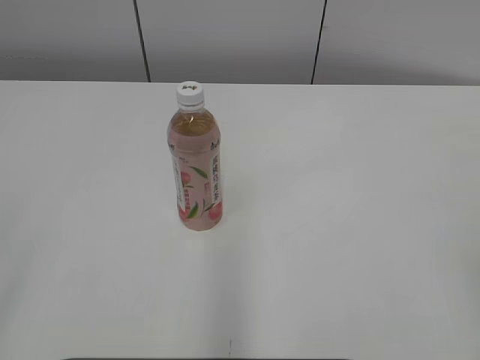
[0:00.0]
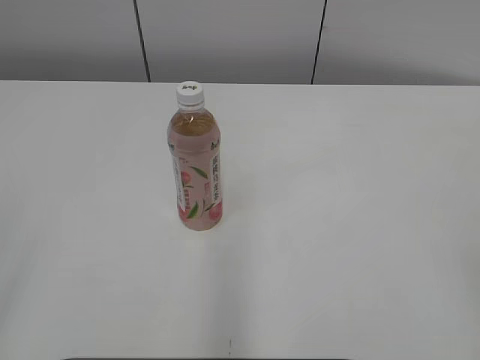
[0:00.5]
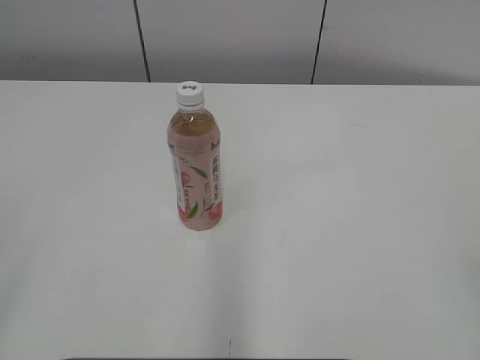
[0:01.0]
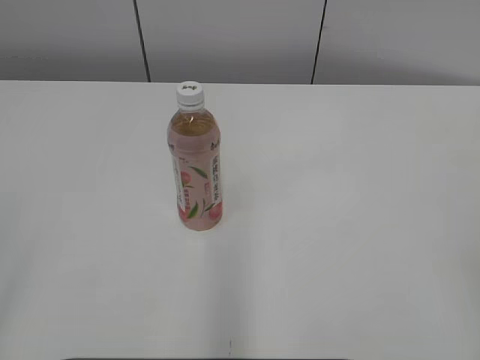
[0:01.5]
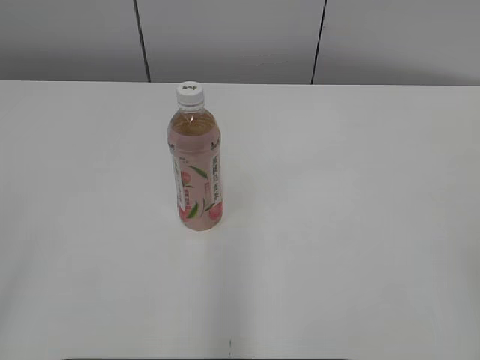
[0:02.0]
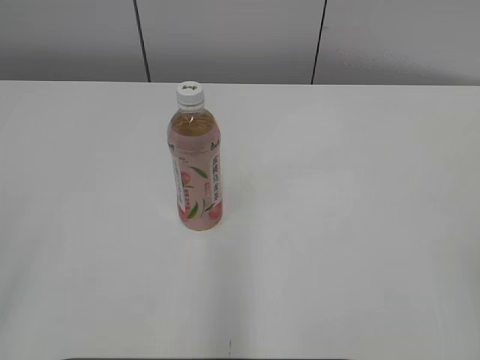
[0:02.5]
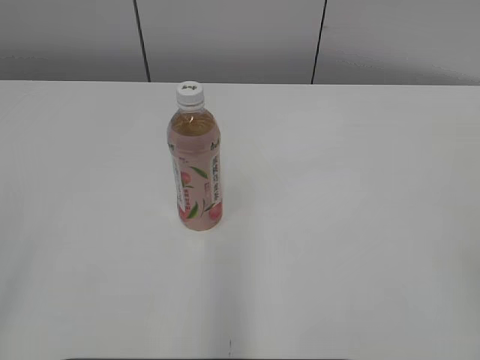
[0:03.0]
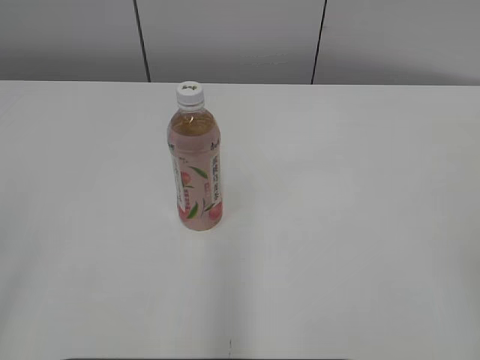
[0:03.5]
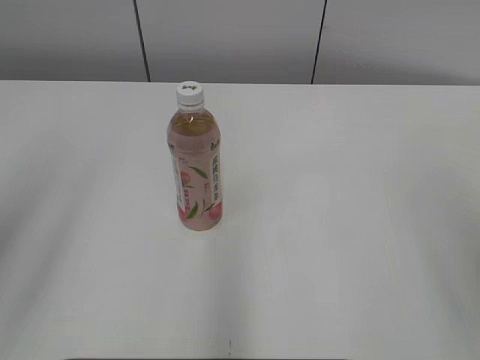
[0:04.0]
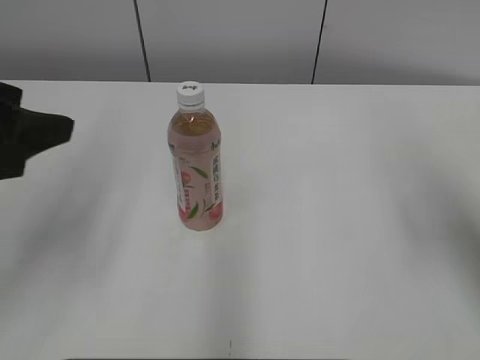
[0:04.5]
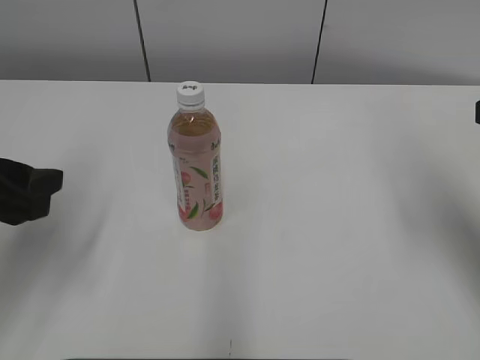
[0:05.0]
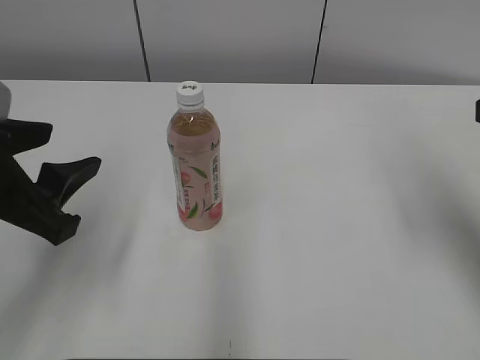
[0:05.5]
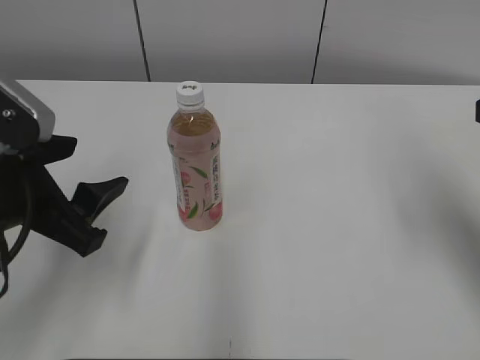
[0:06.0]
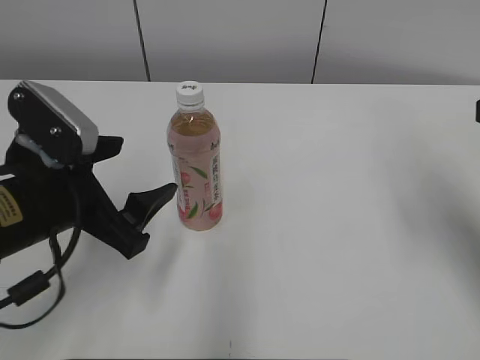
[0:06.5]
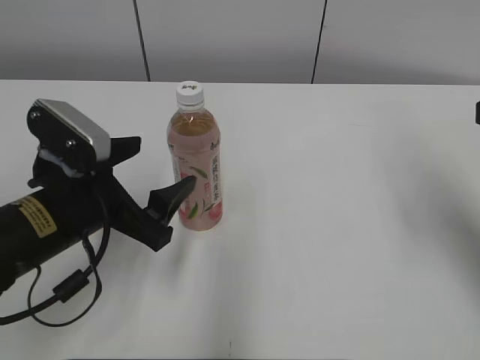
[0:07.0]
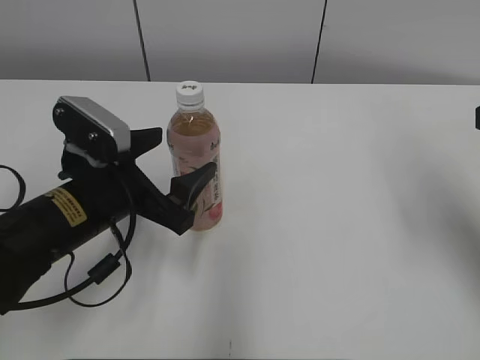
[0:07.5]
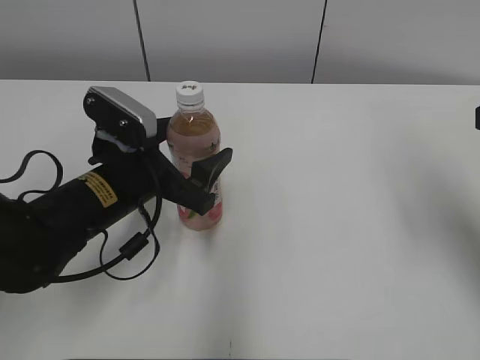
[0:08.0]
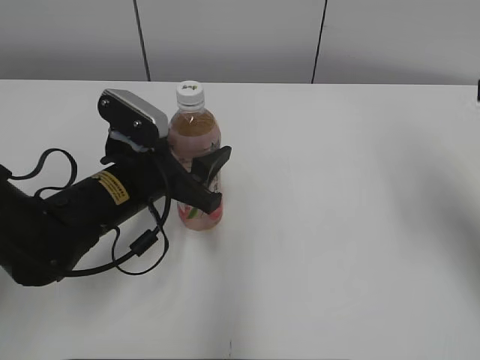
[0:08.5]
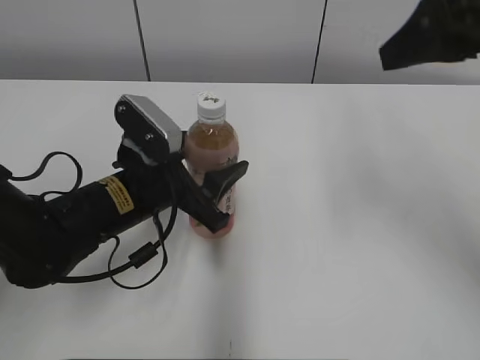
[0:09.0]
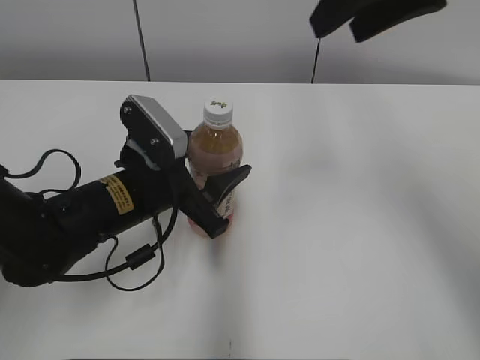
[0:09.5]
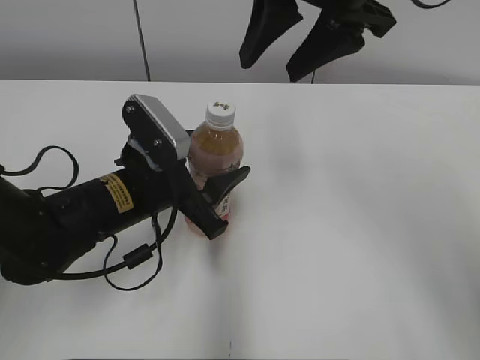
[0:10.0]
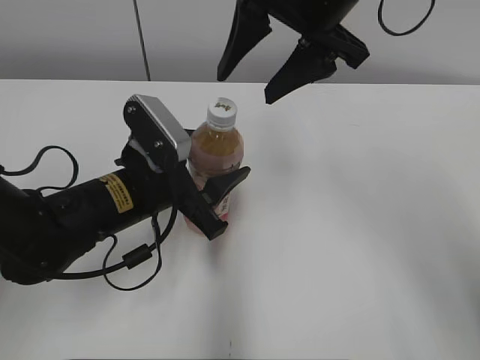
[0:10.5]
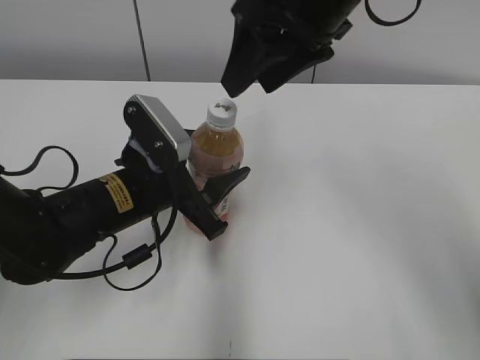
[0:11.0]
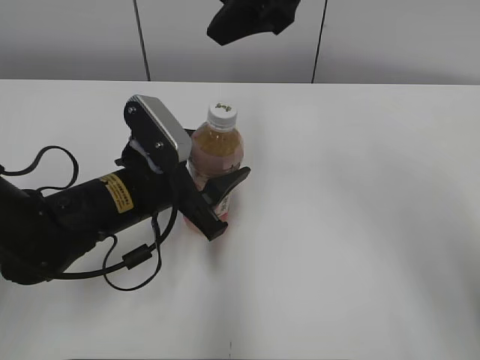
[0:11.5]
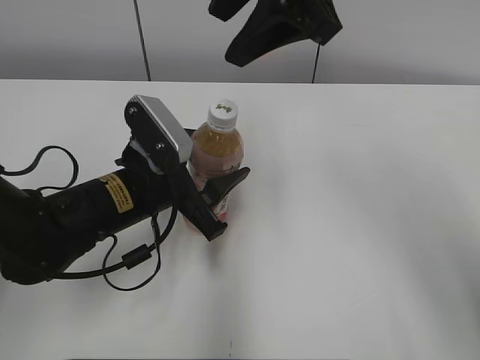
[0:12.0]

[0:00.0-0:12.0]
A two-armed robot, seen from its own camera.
Step, 0:00.0 to 0:08.0: Grab the Peach Oolong Tea with the left hand.
0:04.0 to 0:06.0: The left gripper travels downward, forward and to the right by some 20 cm. The right gripper shifts about 15 cm forward.
0:06.0 to 0:08.0: The left gripper moves forward, to the right and downward, approximately 15 cm, and opens up.
0:08.0 to 0:10.0: The left gripper closes up. The right gripper heads to the left and forward, covering approximately 20 cm.

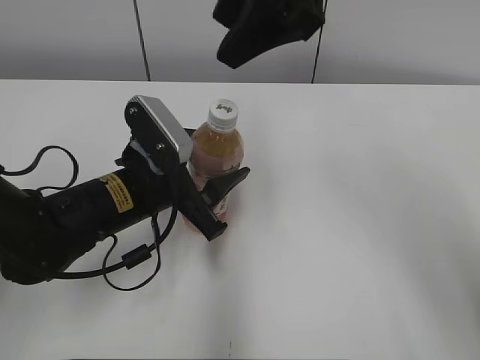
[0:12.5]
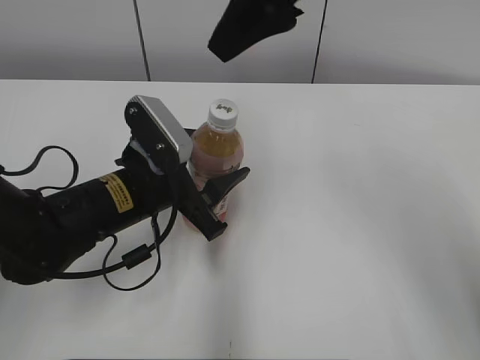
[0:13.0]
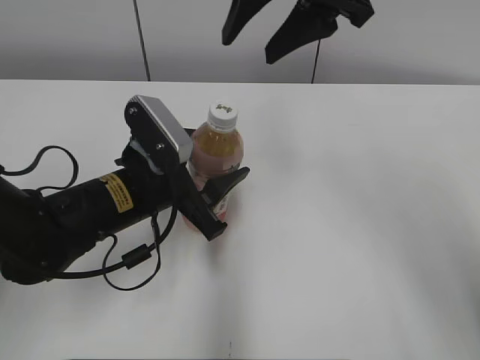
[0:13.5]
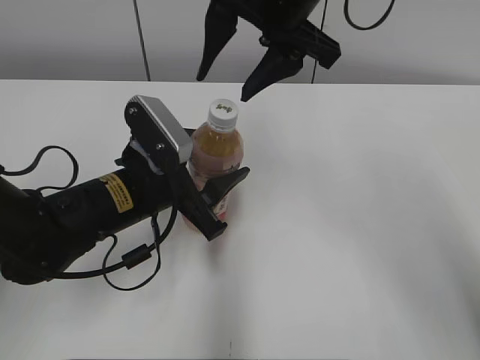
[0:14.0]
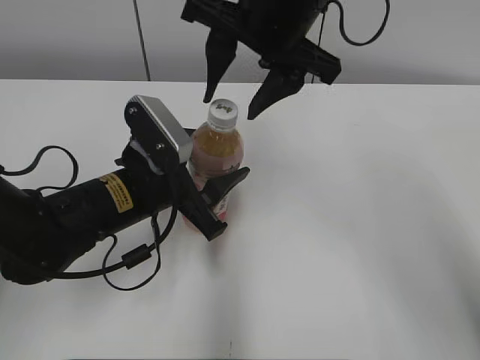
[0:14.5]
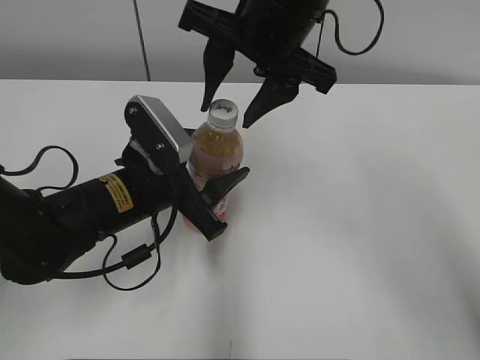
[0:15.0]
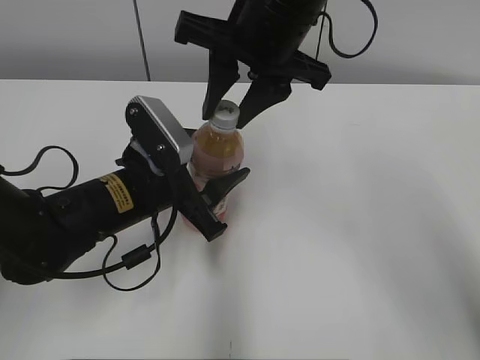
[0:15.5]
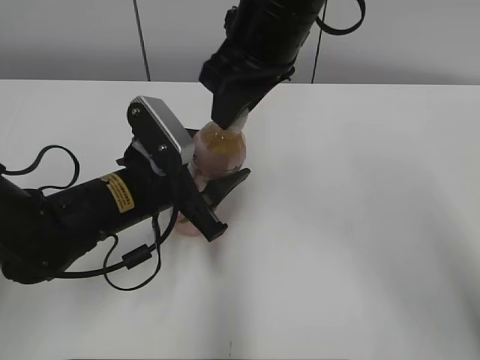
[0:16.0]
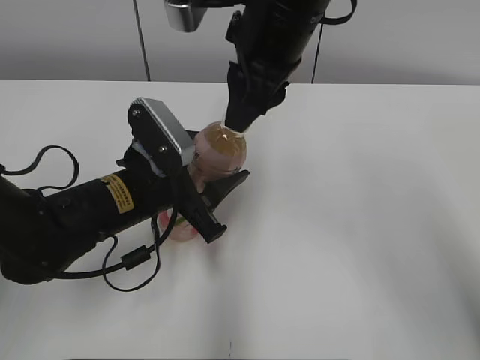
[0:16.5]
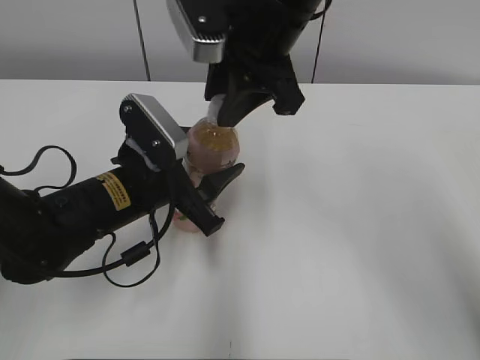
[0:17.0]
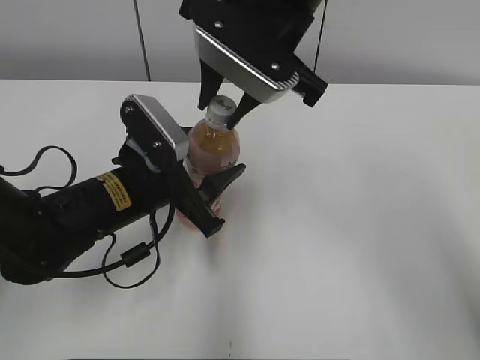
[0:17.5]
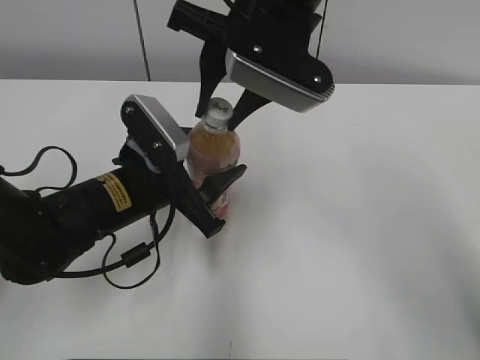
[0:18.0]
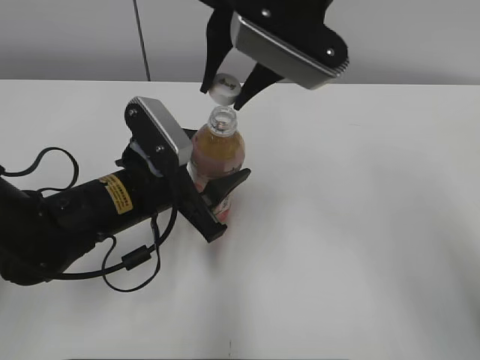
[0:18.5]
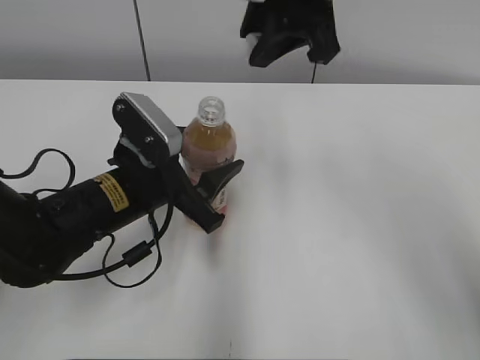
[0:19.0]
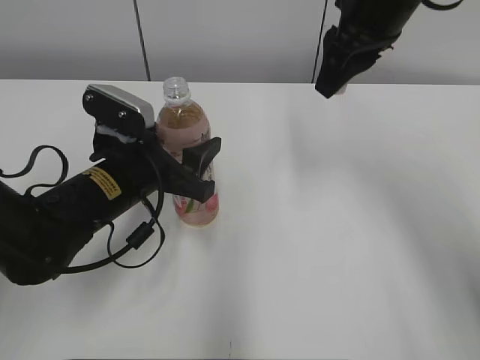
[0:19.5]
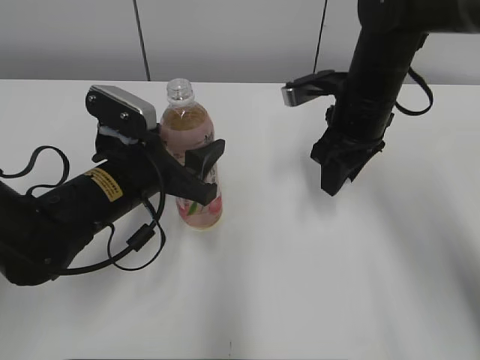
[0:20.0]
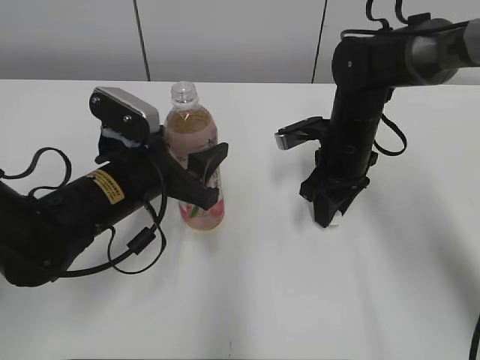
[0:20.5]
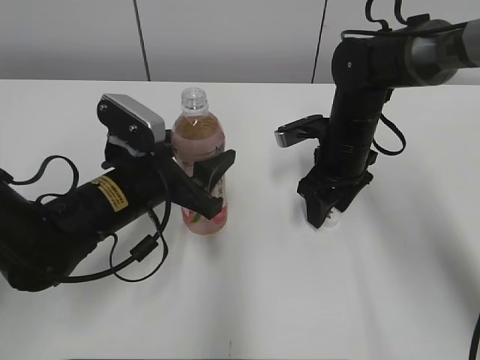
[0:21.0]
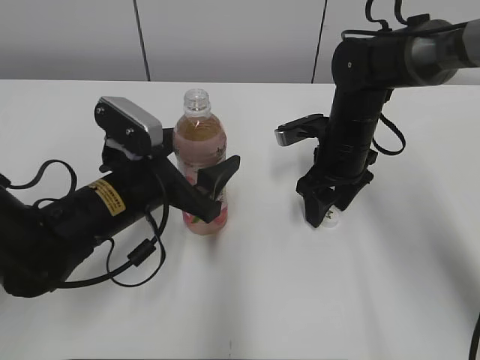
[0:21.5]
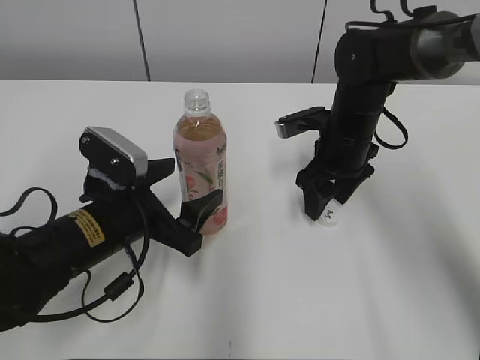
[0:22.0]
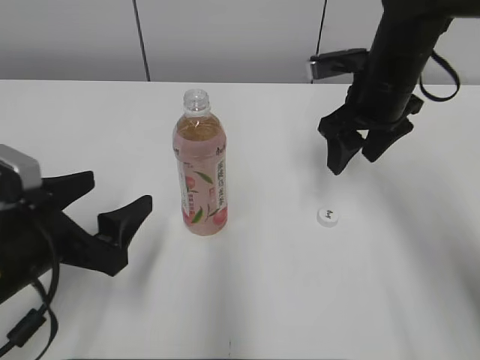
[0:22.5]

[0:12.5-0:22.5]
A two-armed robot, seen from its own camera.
Step, 0:19.0 to 0:20.5: Place the bottle cap on the right.
0:12.5 to 0:14.5: The right gripper is displaced downward by approximately 5 cm.
0:14.5 to 0:16.5: The right gripper closes its fingers.
0:18.5 to 0:20.5: The right gripper moves downward and to the right, approximately 25 cm.
0:20.5 to 0:22.5: The left gripper travels backward and to the left by approximately 10 cm, and opens its fingers. The right gripper is displaced upward by about 10 cm, and opens.

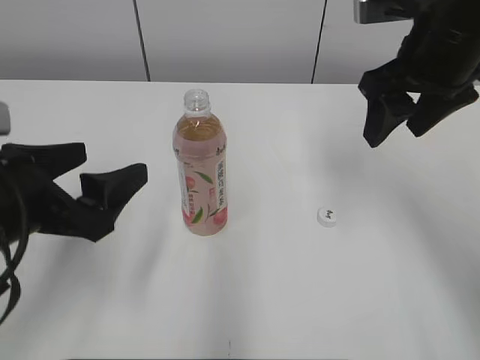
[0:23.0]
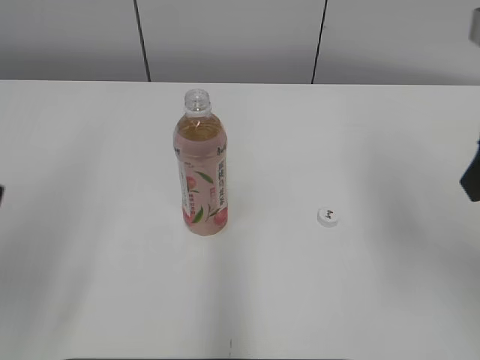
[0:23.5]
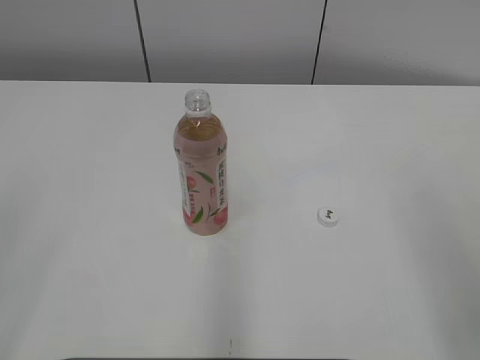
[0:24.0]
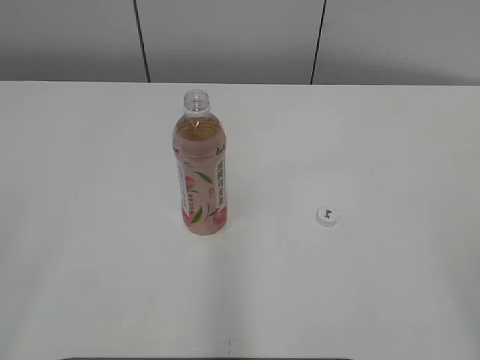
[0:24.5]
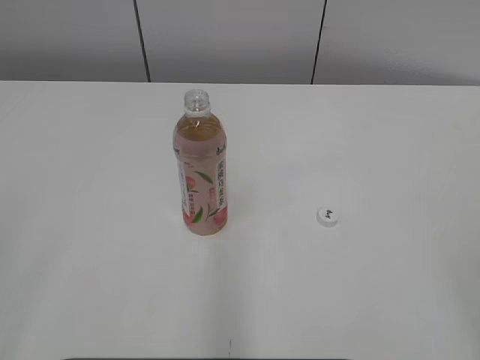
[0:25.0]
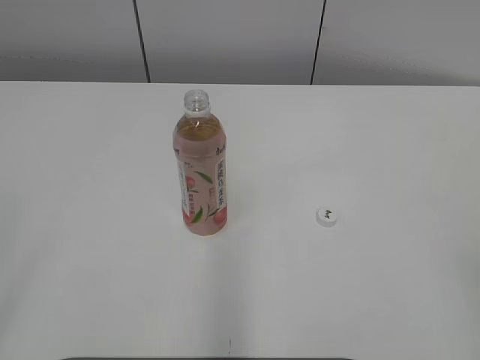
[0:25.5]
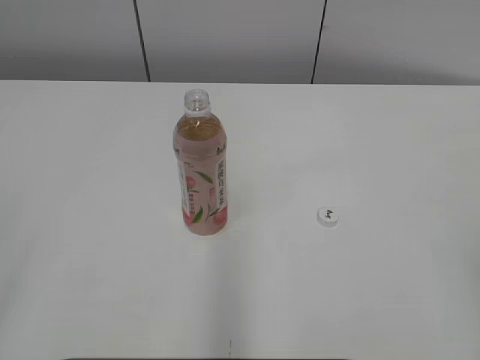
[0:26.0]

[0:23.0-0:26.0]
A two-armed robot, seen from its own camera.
0:23.0 to 0:24.5: The left gripper goes roughly 25 cm backward, to the left and upward. The right gripper moves backward, approximately 35 cm.

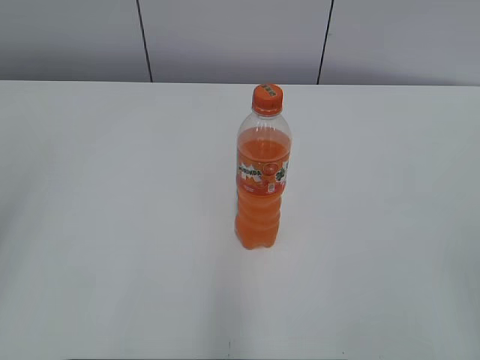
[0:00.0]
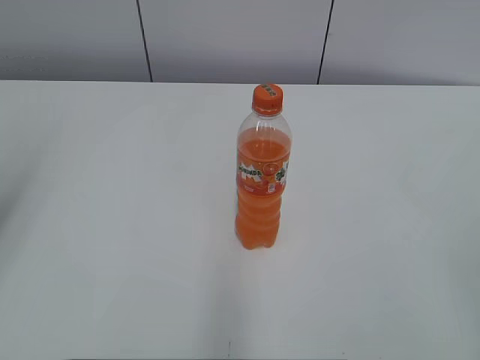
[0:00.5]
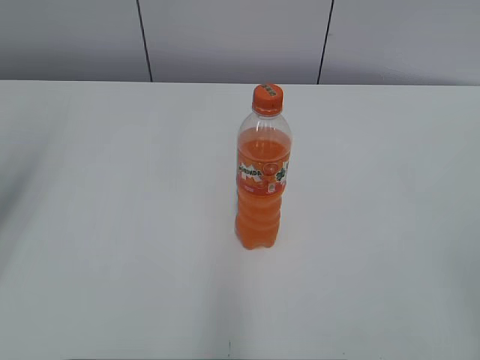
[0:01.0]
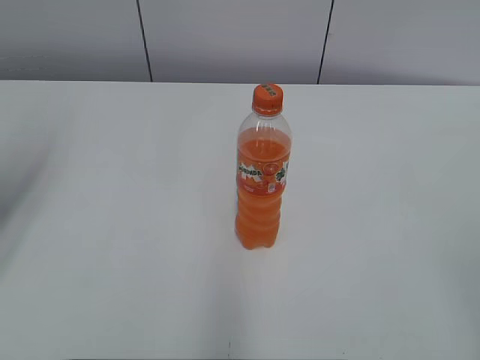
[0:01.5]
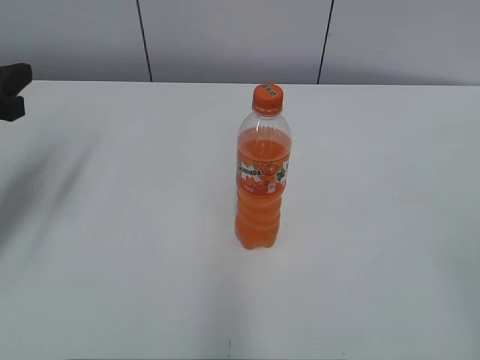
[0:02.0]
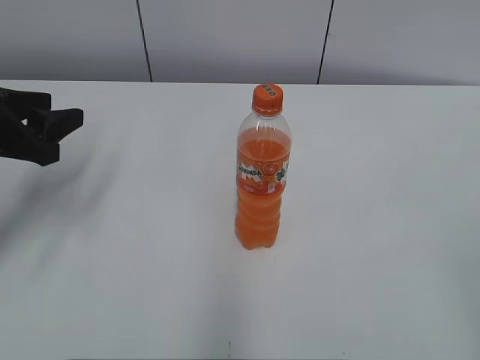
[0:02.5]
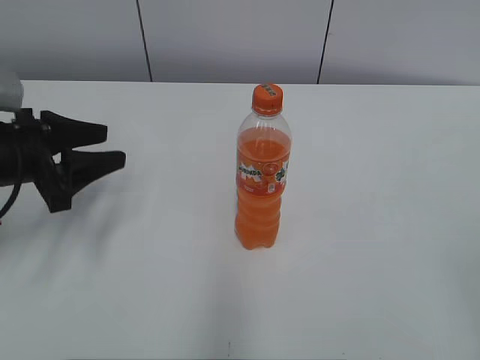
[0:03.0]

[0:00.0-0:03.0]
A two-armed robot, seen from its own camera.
0:01.5 to 0:03.0: The left gripper is displaced downward and to the right by about 15 cm.
